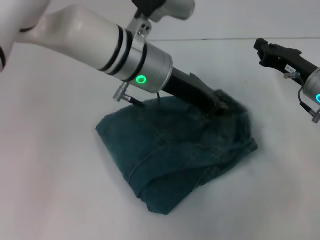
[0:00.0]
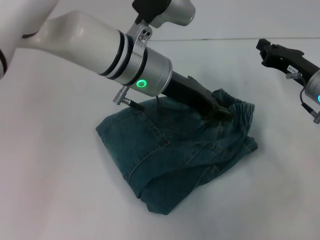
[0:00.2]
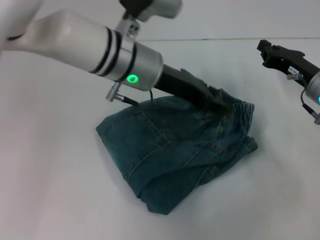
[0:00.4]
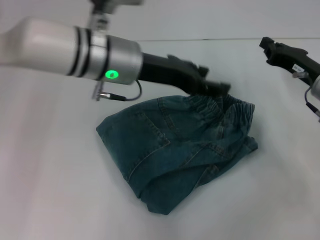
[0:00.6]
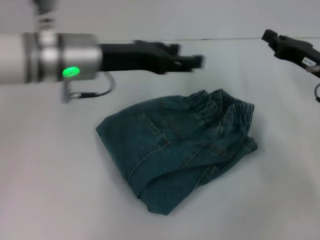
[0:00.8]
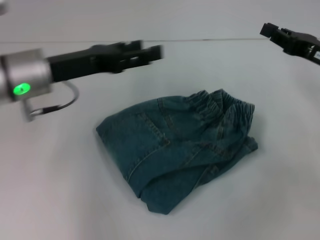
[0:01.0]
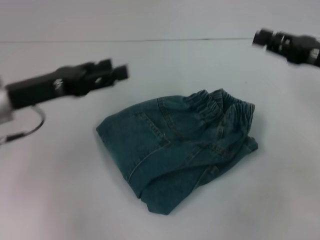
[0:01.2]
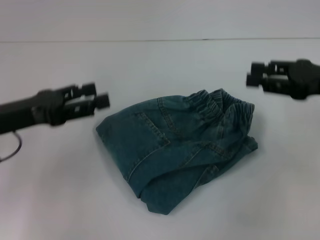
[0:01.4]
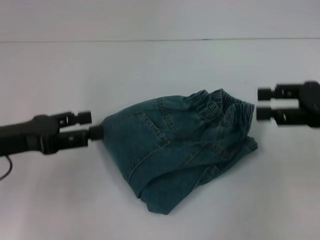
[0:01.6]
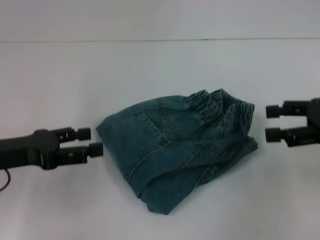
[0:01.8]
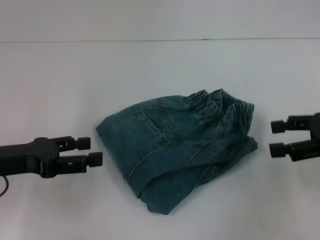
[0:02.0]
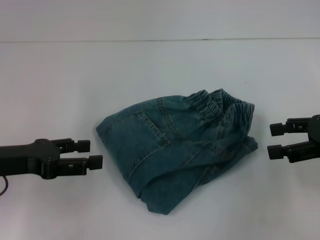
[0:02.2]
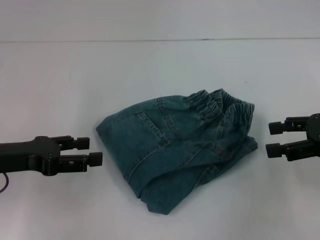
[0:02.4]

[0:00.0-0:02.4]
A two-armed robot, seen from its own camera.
0:00.0 to 0:01.2: The left gripper heads to the left, covering about 20 cm, and opens its fingers, while the right gripper shifts some 5 cm upward.
0:01.2 to 0:02.4: The right gripper ends up some 5 cm from where it was, and opens. Meanwhile the left gripper changes place by some 5 cm.

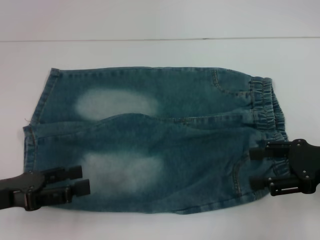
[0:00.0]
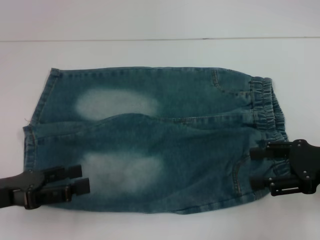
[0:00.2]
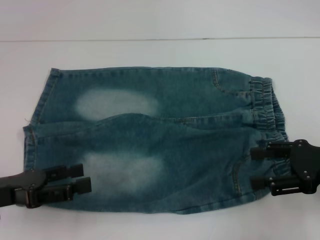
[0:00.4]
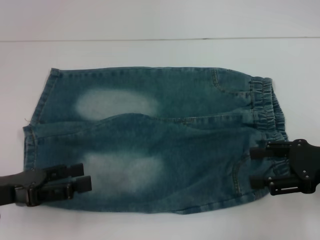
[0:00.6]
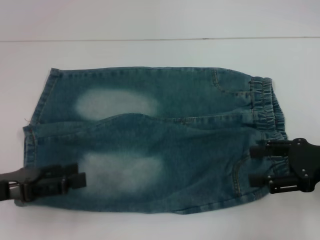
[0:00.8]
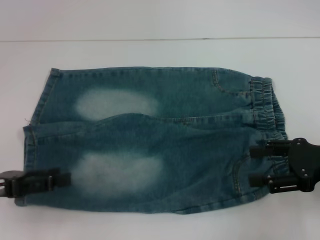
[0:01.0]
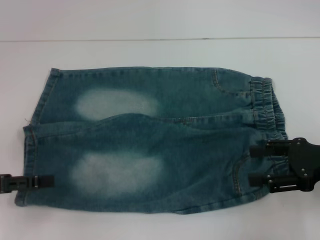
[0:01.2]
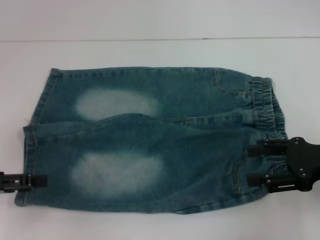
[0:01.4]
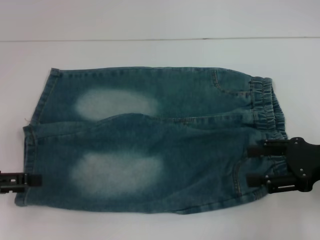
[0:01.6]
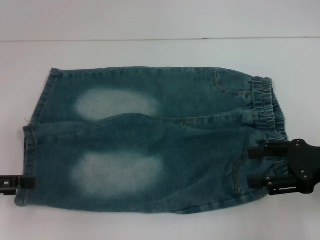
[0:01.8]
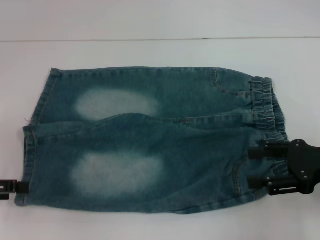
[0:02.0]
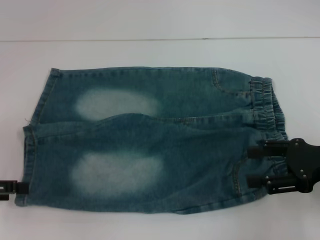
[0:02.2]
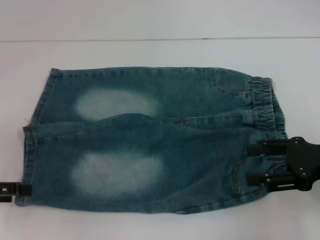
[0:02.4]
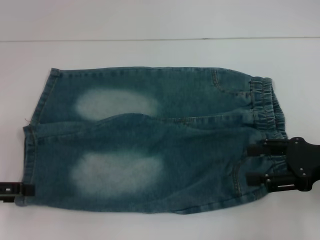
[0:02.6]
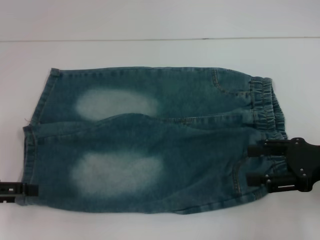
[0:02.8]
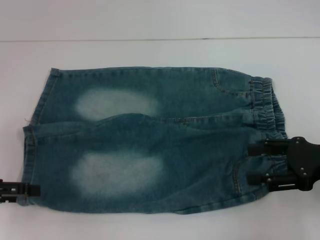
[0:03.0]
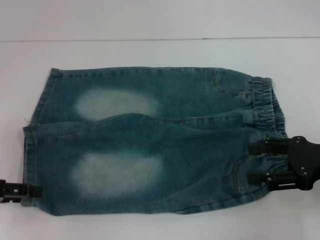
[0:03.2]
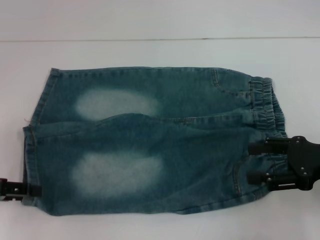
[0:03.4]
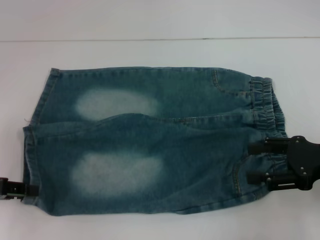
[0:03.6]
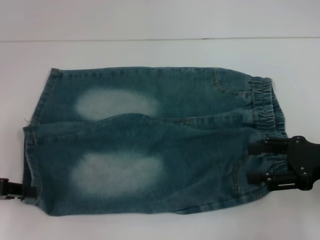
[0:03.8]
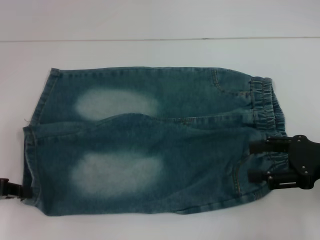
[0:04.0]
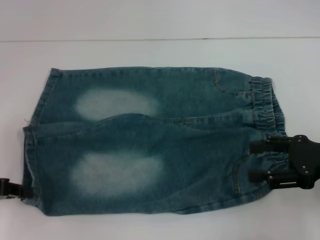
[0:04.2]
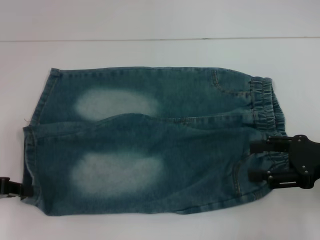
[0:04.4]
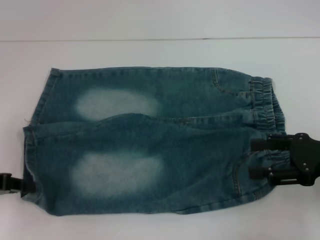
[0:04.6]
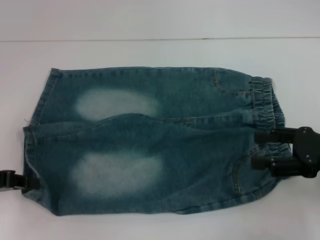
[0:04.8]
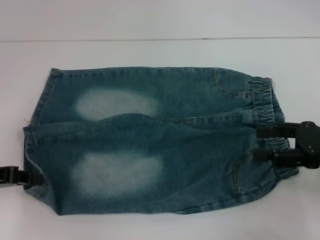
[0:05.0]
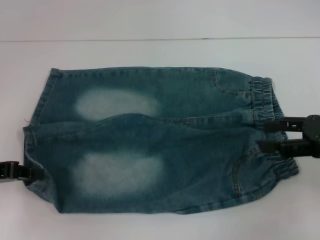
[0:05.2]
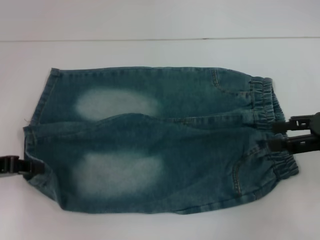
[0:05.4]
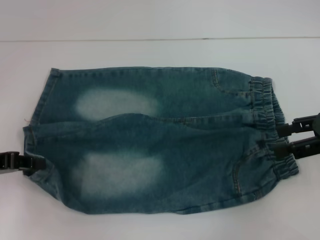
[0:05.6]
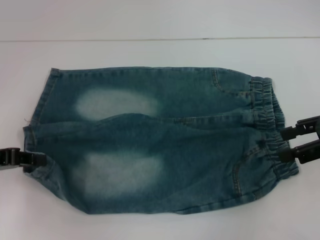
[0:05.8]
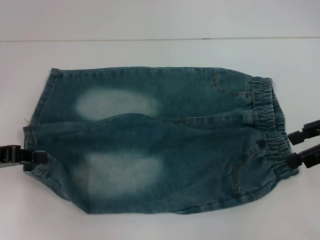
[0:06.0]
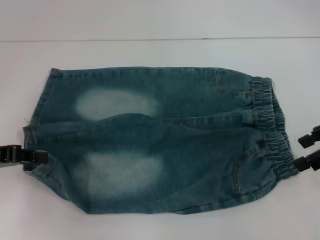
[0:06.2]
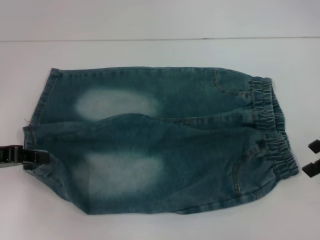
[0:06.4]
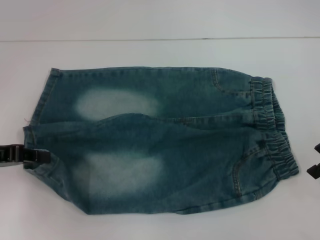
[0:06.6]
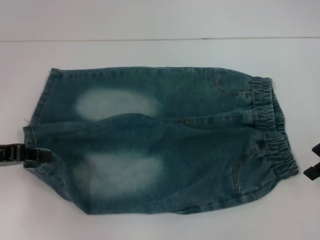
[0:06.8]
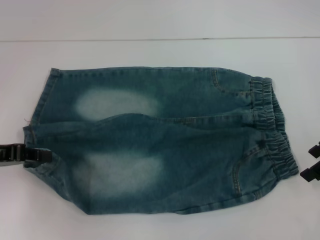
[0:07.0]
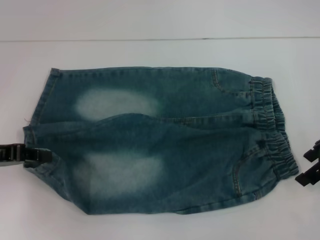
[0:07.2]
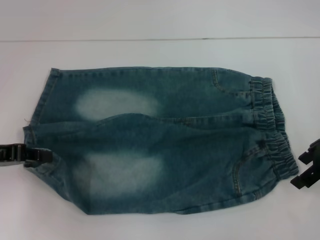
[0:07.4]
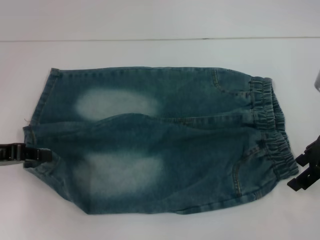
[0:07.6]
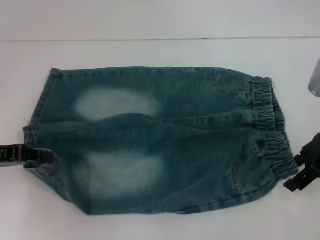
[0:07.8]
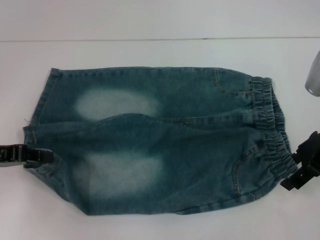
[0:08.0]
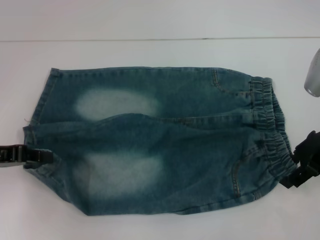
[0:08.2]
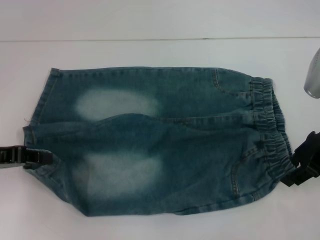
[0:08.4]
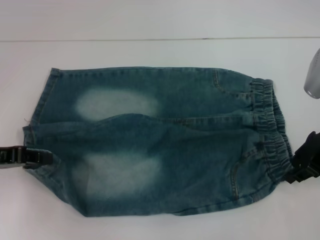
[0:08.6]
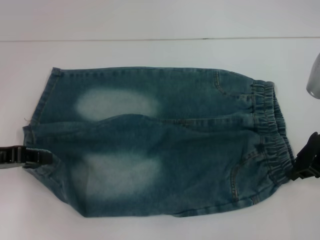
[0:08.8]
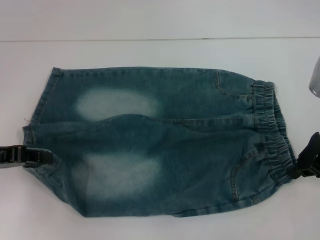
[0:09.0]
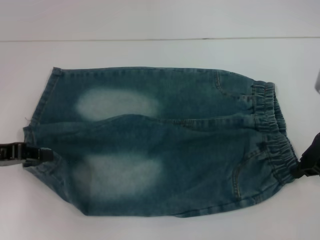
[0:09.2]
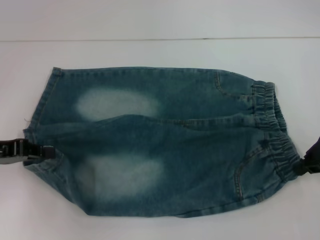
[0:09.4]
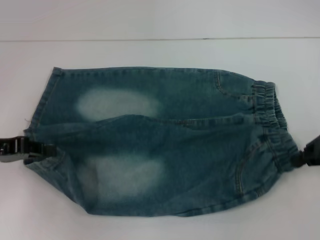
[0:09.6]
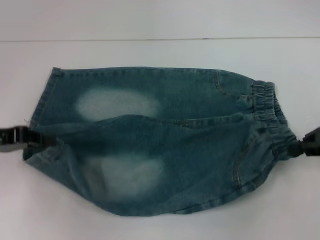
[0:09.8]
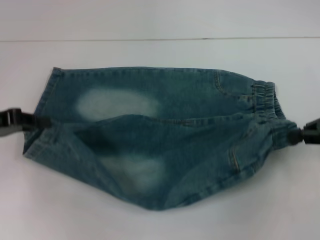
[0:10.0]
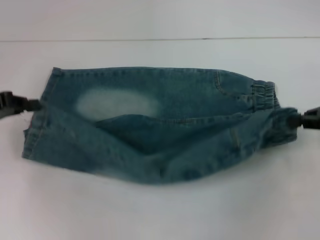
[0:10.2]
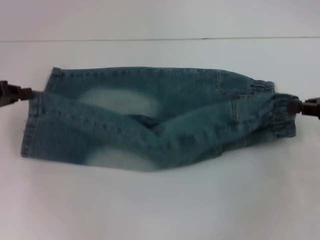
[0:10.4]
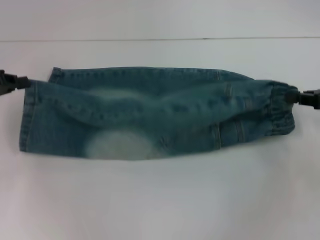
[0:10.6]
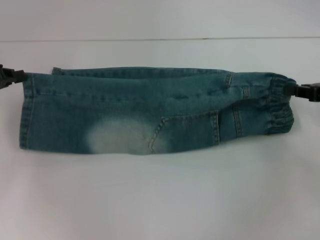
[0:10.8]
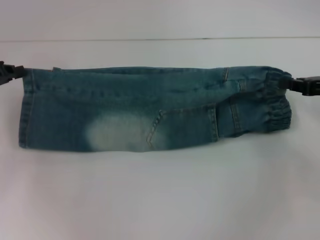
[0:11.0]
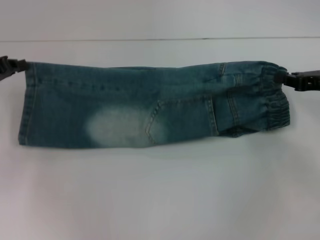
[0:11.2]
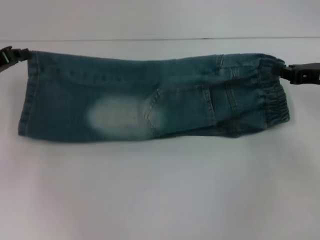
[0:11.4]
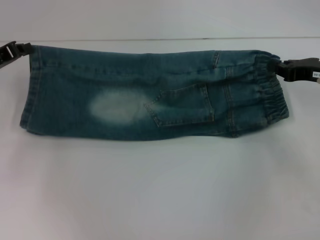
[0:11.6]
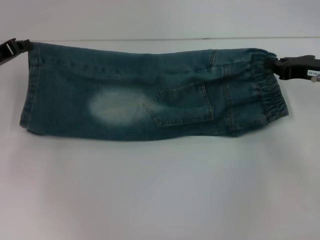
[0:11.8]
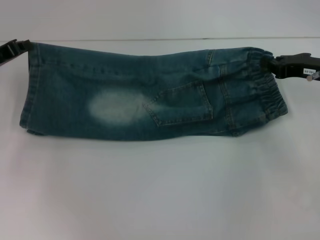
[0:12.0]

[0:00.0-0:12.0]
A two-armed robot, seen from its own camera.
Step, 0:00.0 to 0:04.2: Grab the lower left pant leg with your left hand.
Step, 0:04.4 to 0:08.8: Hold the lower right waistband with your right hand.
0:00.0 to 0:01.6: The left gripper moves to the left, about 5 cm.
0:01.6 to 0:03.0: The grippers make only small movements.
0:03.0 to 0:04.4: The left gripper closes.
0:04.4 to 0:06.0: The right gripper is displaced upward and forward by about 10 cm.
0:06.0 to 0:07.6: The right gripper moves some 5 cm.
0:07.6 to 0:09.0: The right gripper closes up.
0:09.0 to 0:10.4: The left gripper moves some 5 cm. The right gripper travels to the right by roughly 10 cm.
0:10.4 to 0:12.0: The left gripper shifts about 5 cm forward. The right gripper heads forward and to the left, covering approximately 10 cm.

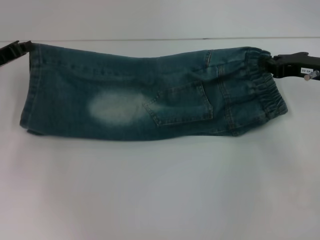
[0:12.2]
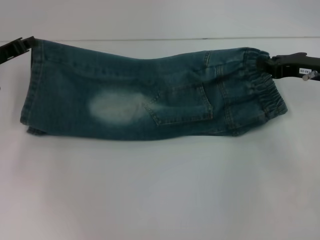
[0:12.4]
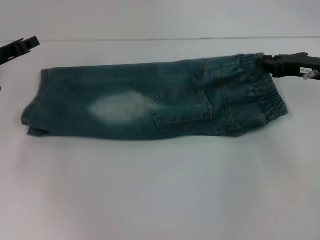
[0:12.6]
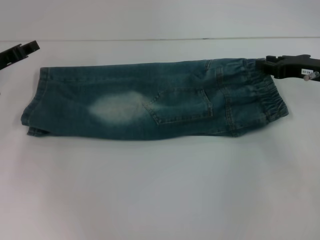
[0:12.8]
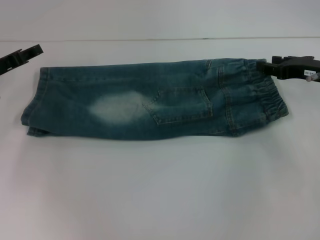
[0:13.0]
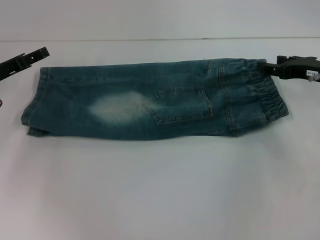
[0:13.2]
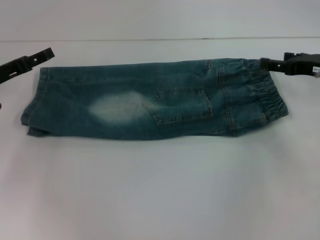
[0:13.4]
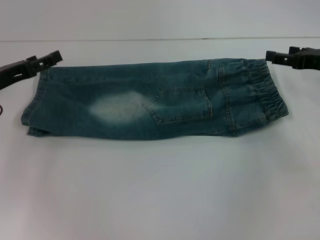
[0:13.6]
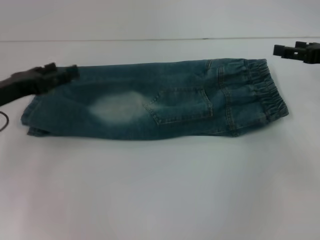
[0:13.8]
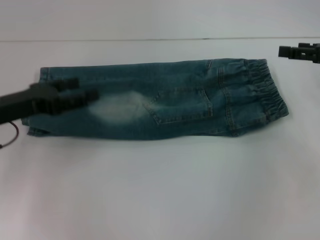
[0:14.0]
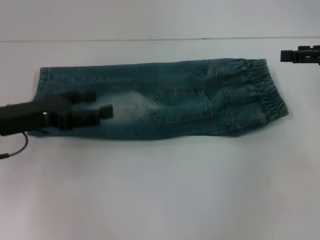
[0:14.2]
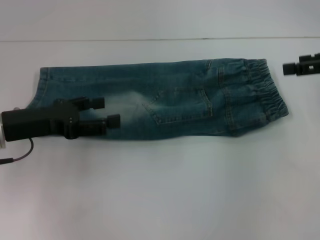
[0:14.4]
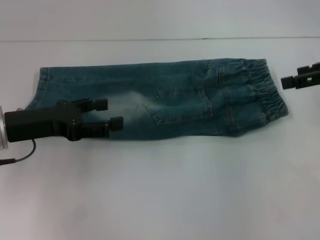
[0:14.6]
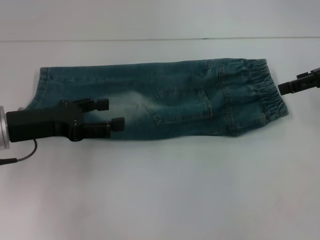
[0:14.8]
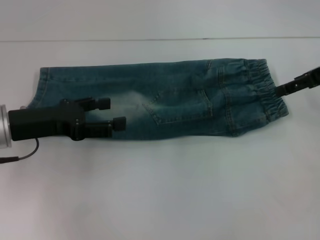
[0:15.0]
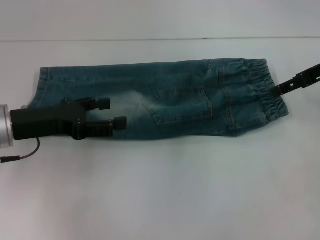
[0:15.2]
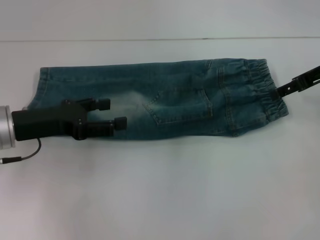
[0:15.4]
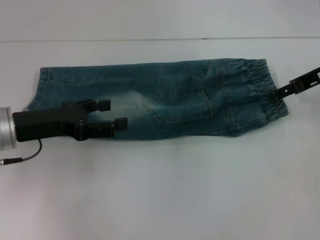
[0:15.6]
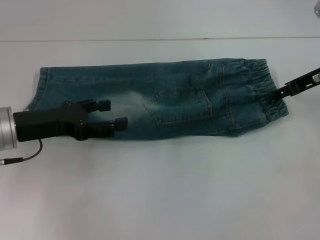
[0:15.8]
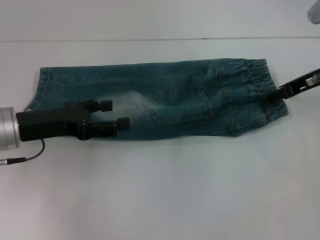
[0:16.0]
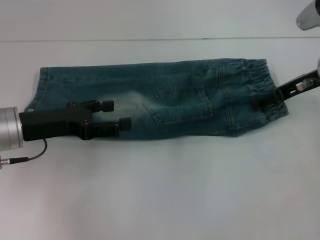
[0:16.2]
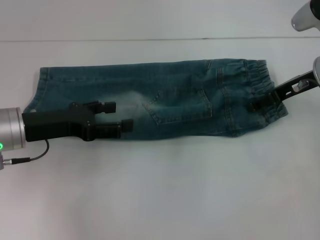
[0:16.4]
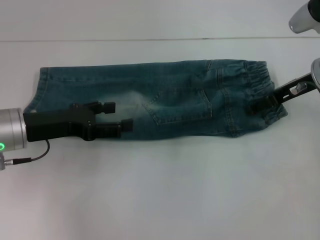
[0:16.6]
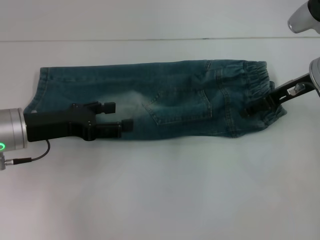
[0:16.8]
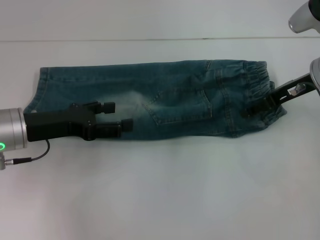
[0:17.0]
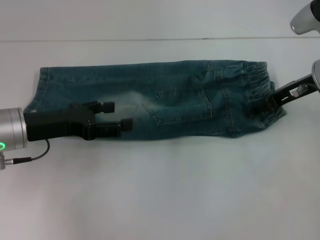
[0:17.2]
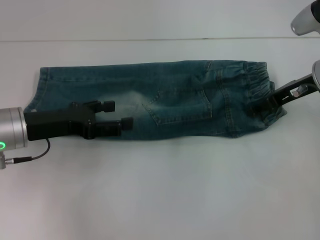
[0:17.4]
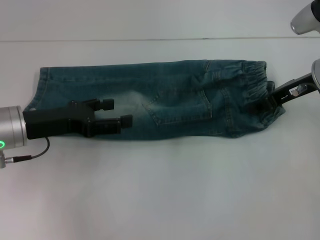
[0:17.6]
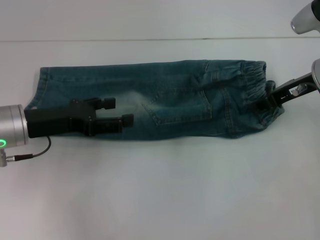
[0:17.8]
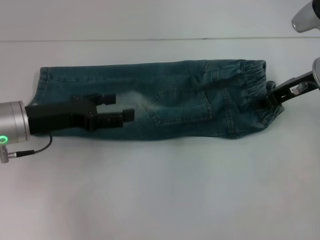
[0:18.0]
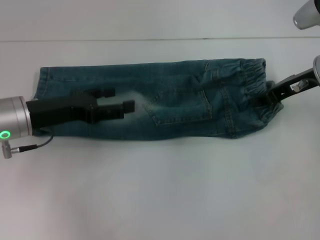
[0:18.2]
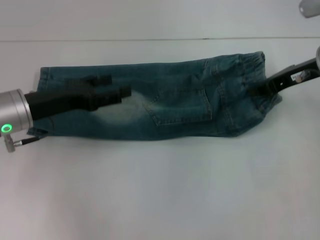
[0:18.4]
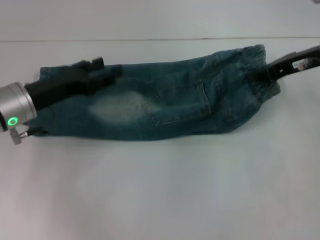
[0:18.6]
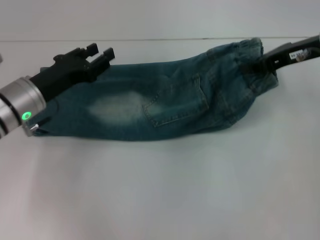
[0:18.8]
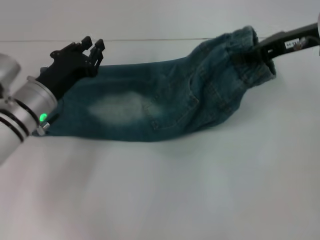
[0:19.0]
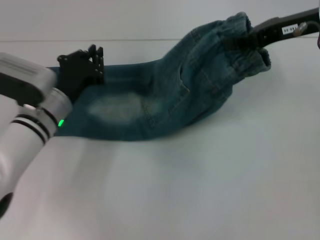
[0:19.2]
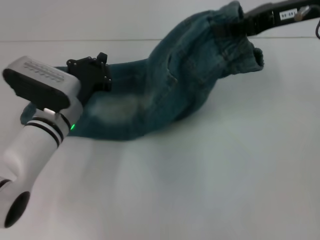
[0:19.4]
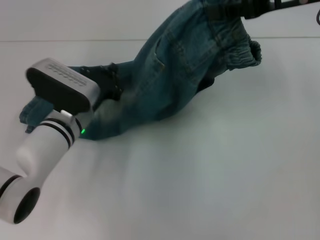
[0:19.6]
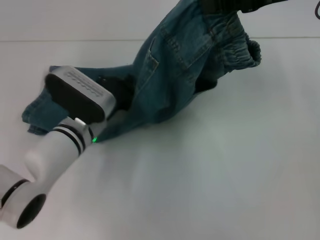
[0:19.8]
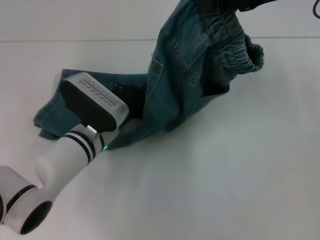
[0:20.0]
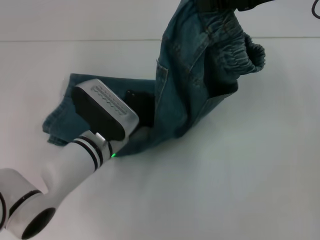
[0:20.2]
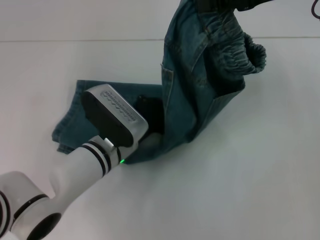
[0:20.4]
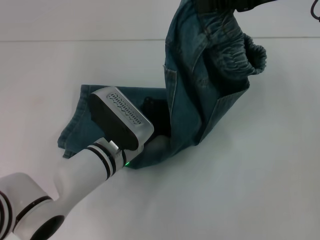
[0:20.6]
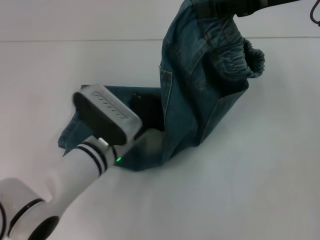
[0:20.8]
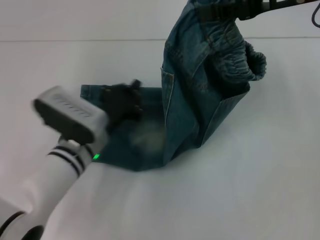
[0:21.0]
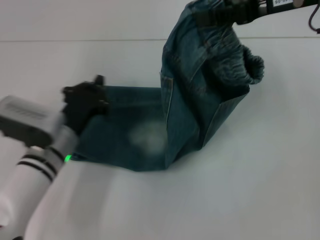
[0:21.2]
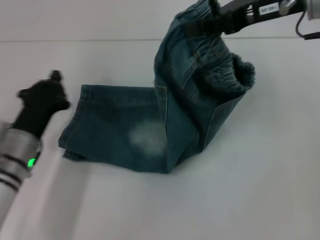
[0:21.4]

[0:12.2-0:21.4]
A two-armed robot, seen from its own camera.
Step, 0:13.0 to 0:16.0: Grab the waistband with your right hand.
Step, 0:16.2 to 0:20.8: Press the middle of the pants with your left hand.
0:12.2 to 0:13.8: The right gripper opens. The left gripper shifts approximately 5 cm backward, and opens its fingers.
0:13.8 to 0:15.2: The left gripper moves approximately 5 cm. Meanwhile the right gripper moves upward, roughly 5 cm.
0:15.2 to 0:16.8: The right gripper heads downward, covering approximately 5 cm.
0:16.8 to 0:18.4: The right gripper closes up.
0:18.4 to 0:19.8: The left gripper shifts some 15 cm to the right and downward, and closes up. Meanwhile the right gripper is displaced upward by about 10 cm.
0:19.8 to 0:21.4: The left gripper moves to the left and backward, approximately 10 cm.
